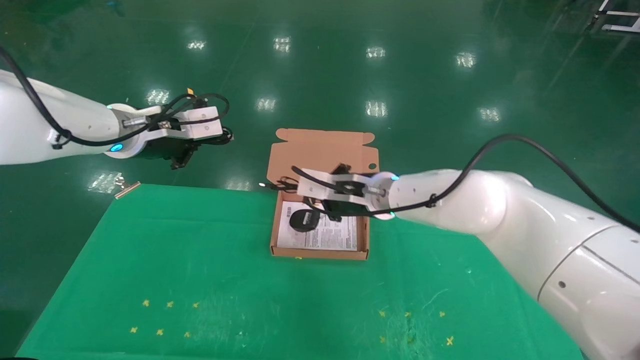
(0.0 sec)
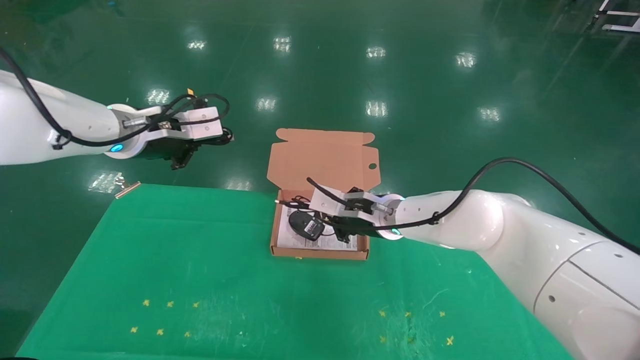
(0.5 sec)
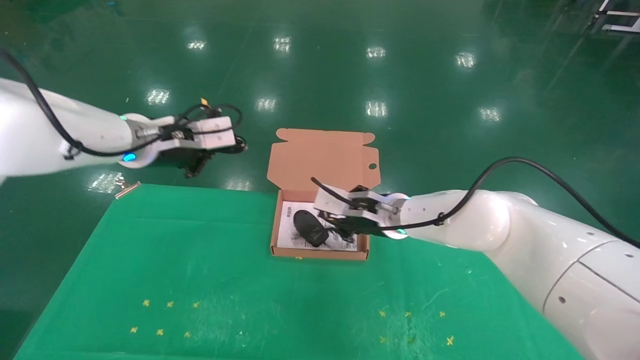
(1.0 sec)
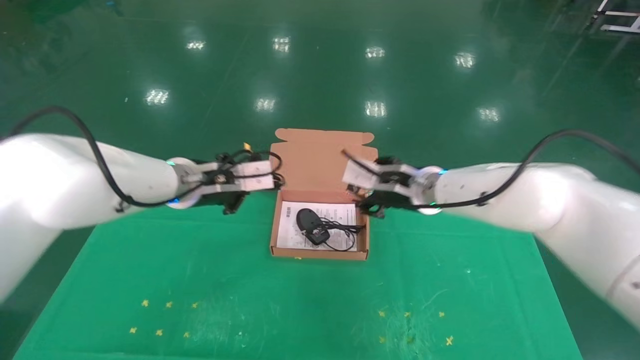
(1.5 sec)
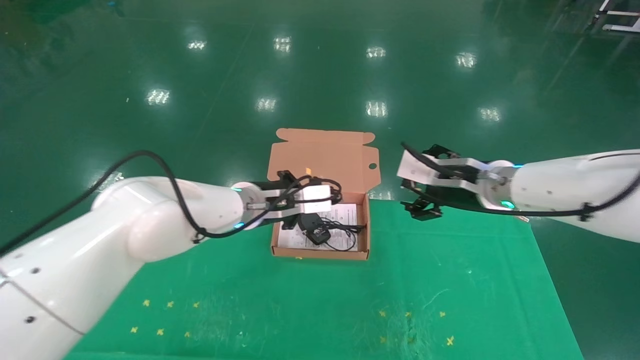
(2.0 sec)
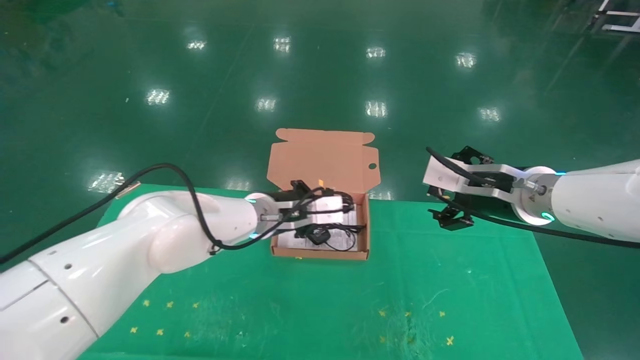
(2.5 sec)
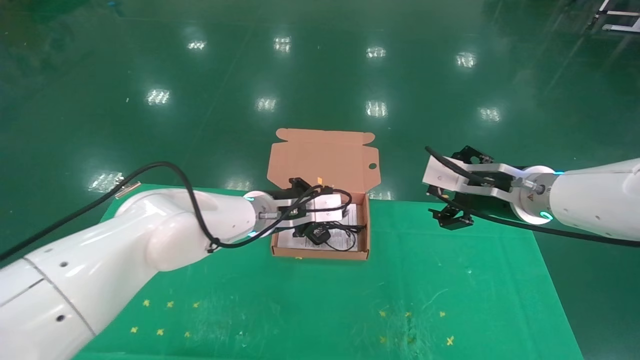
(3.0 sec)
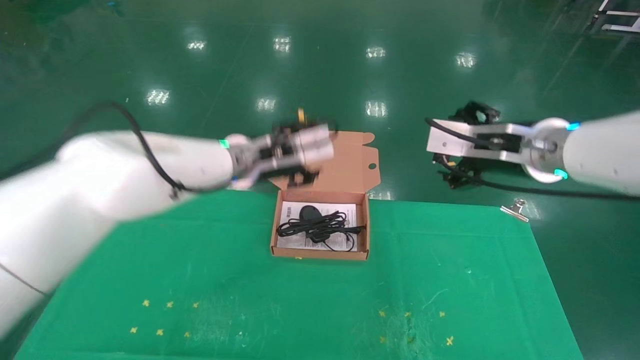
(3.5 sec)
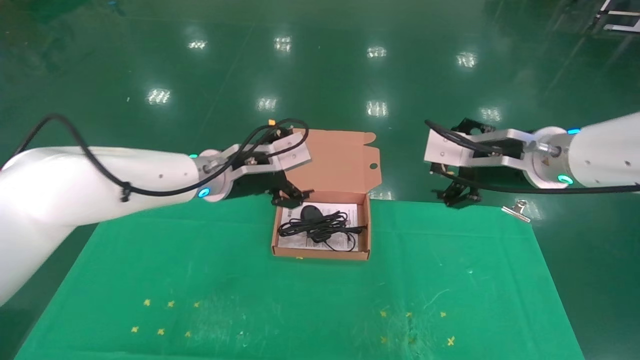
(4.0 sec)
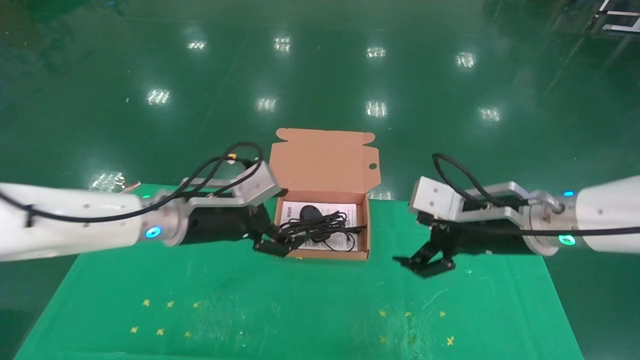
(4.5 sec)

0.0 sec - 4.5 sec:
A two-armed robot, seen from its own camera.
Task of the whole recording: grasp data cable left put into box grasp mouse right put into box.
Step, 0.0 sec - 3.5 sec: Place the mouse and power cord into the box.
0.0 sec - 2.0 sec: The right gripper shifts about 15 cm to the right, and opens up; the left gripper goes some 20 cm to the right and downward.
2.0 sec - 4.5 sec: The right gripper travels backward by roughly 5 cm. Meanwhile the left gripper heads to the left and backward, covering about 10 cm, and opens its fingers.
